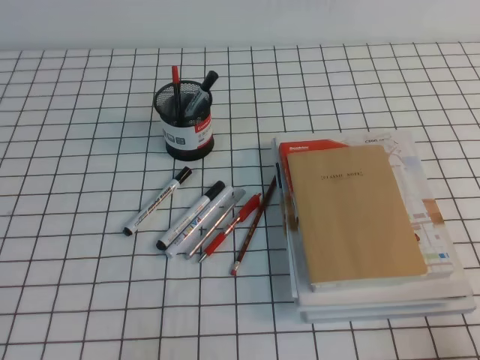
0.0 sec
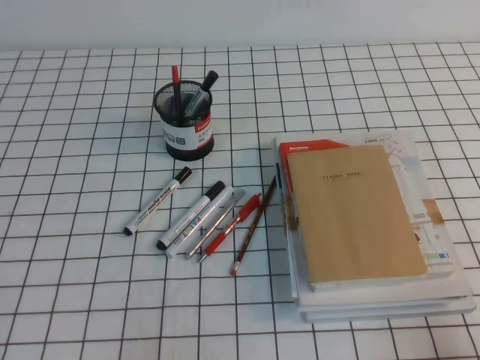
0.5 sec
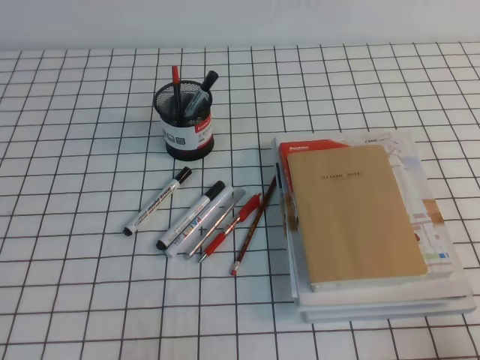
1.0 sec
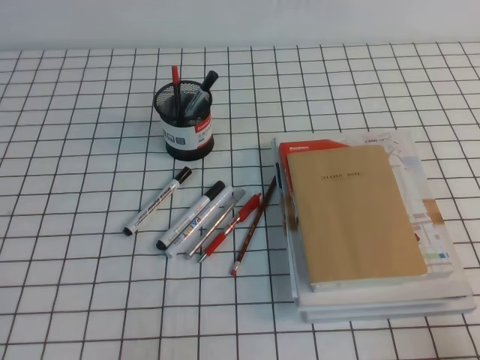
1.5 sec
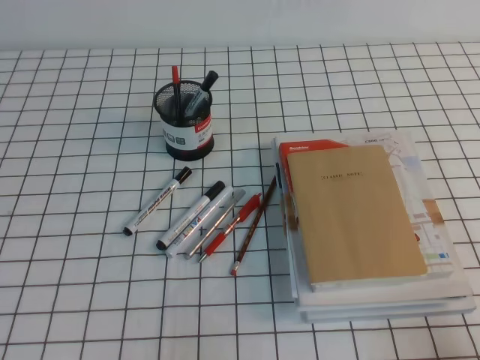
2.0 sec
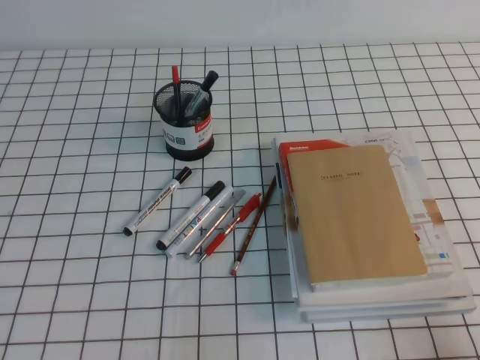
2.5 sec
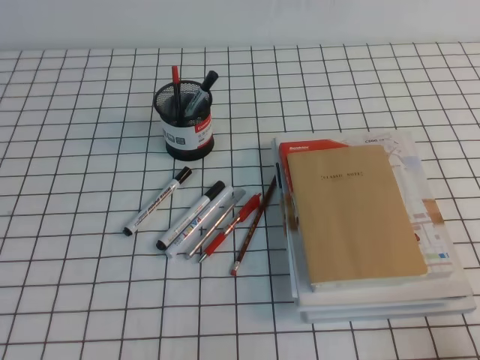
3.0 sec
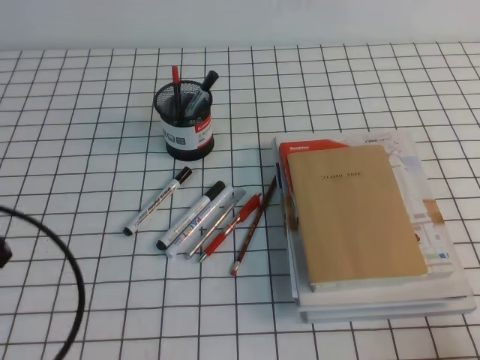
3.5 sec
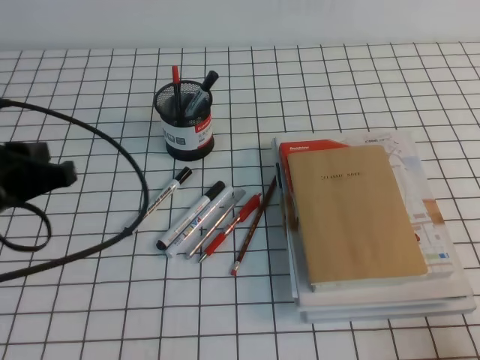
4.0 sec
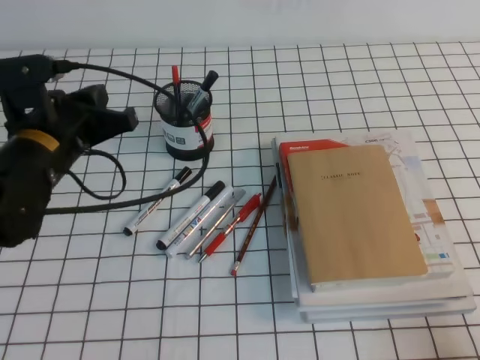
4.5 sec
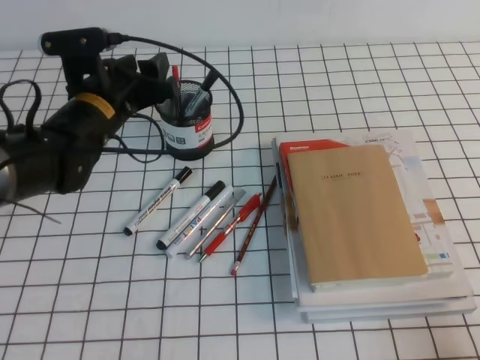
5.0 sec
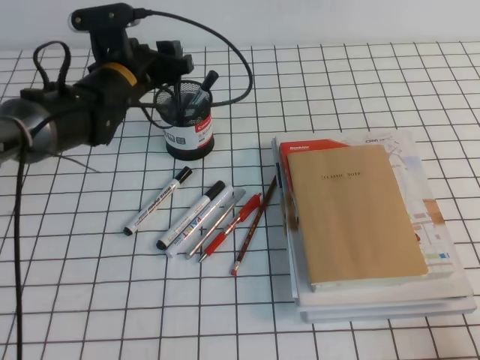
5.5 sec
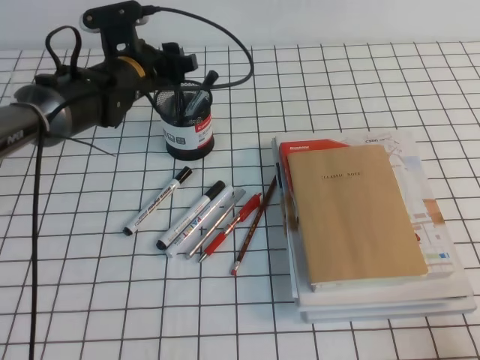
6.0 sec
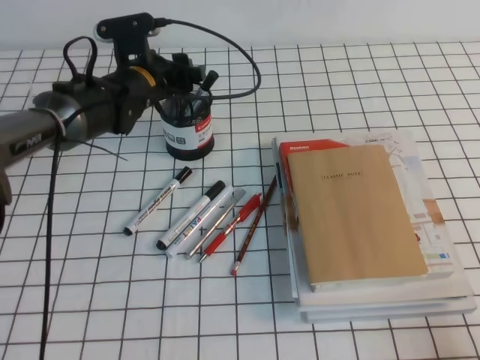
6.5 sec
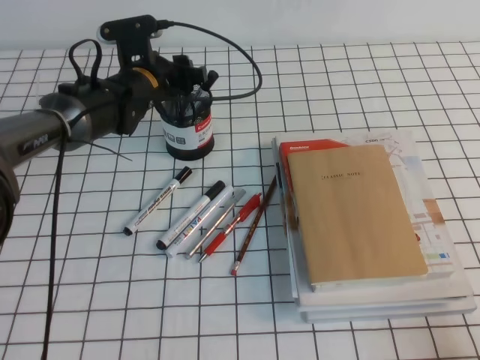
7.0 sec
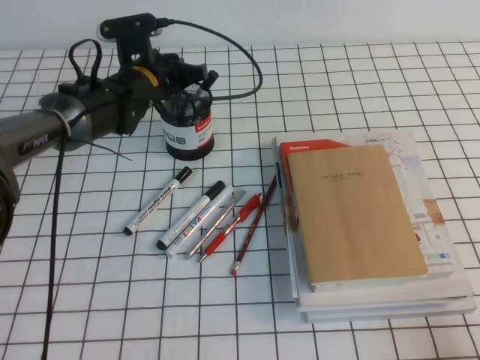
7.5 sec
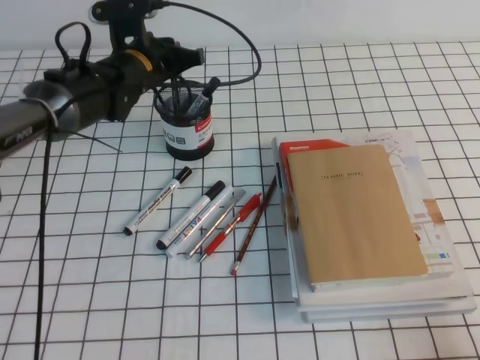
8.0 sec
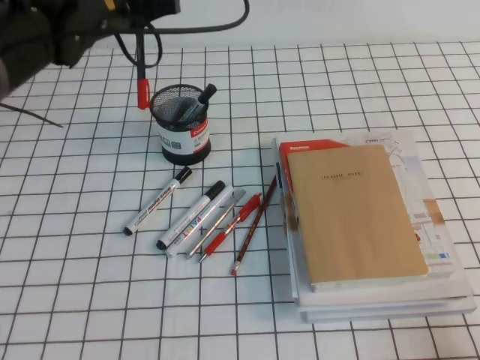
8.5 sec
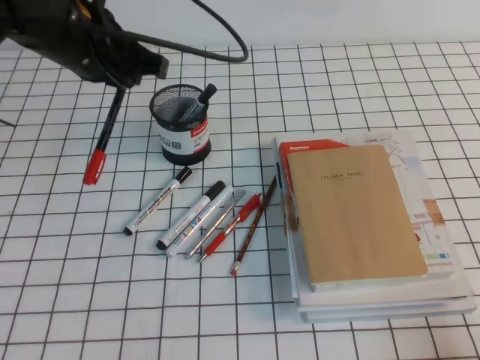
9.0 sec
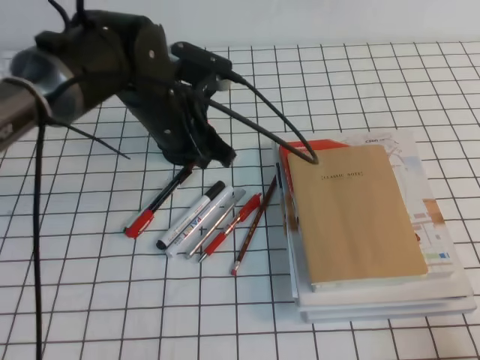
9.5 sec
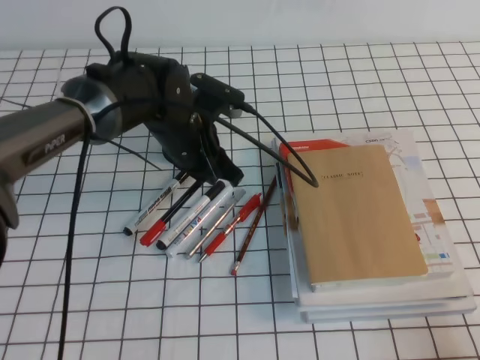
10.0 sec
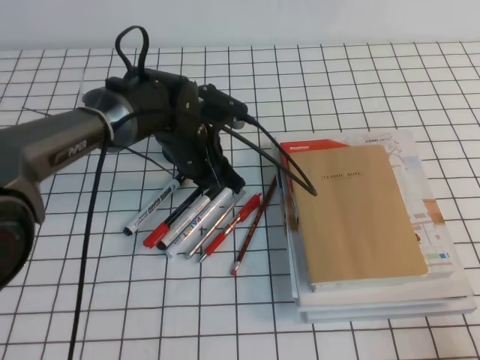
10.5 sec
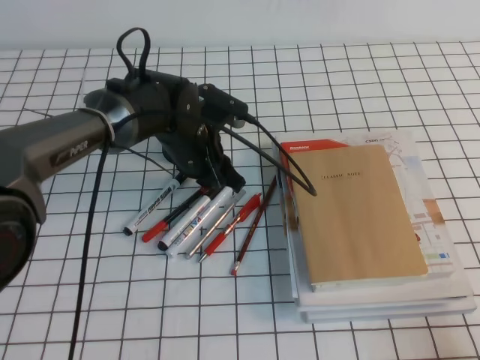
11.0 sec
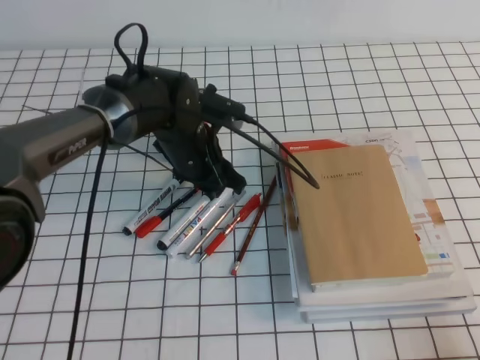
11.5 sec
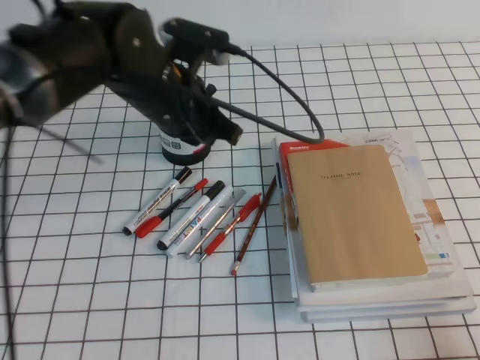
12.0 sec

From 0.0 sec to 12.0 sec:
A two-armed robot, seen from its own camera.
From 2.0 sec to 4.0 sec: The left gripper moves forward and upward, approximately 20 cm.
From 4.0 sec to 6.0 sec: The left gripper moves forward and to the right, roughly 25 cm, and opens its fingers.
From 6.0 sec to 8.0 sec: The left gripper closes.
From 8.0 sec to 10.0 sec: The left gripper goes roughly 10 cm backward and to the right, and travels upward and back again, approximately 10 cm each way.
From 10.0 sec to 12.0 sec: The left gripper goes roughly 5 cm upward, and opens, then closes once more.

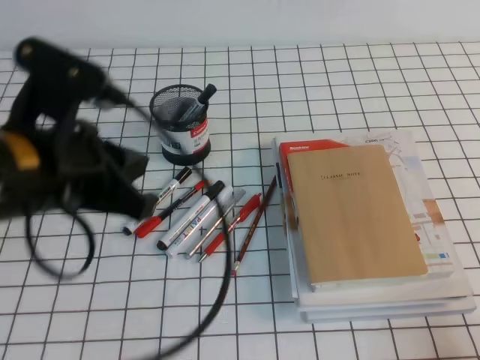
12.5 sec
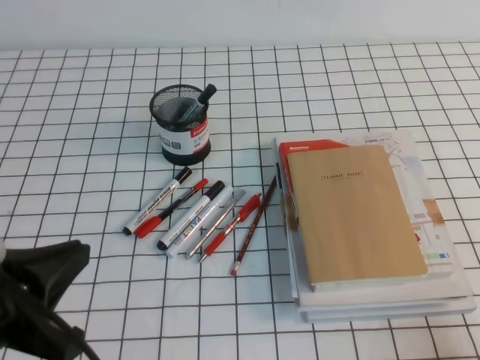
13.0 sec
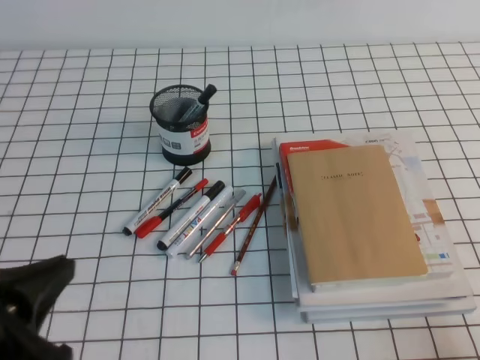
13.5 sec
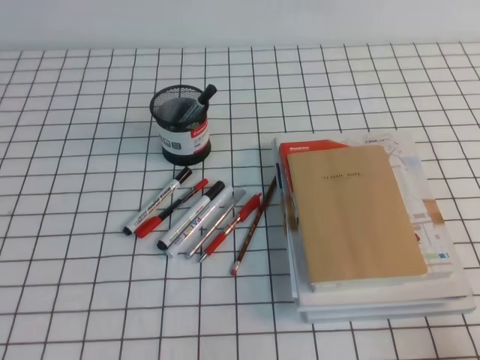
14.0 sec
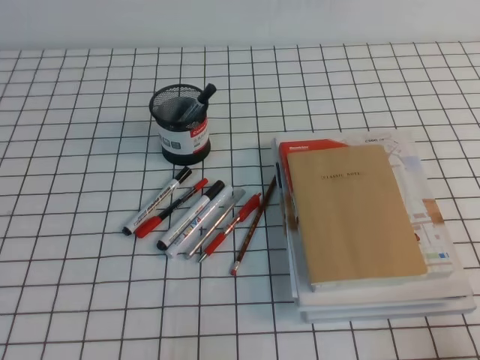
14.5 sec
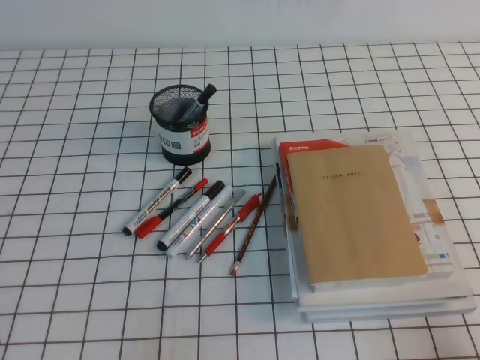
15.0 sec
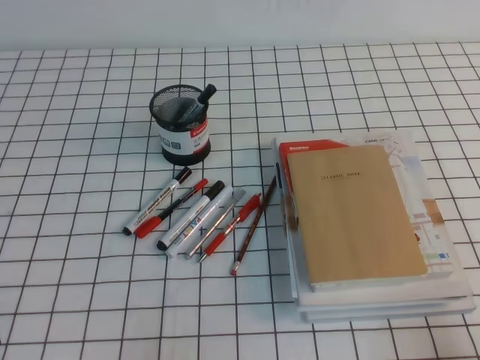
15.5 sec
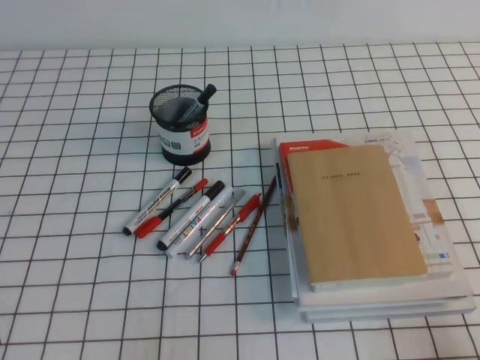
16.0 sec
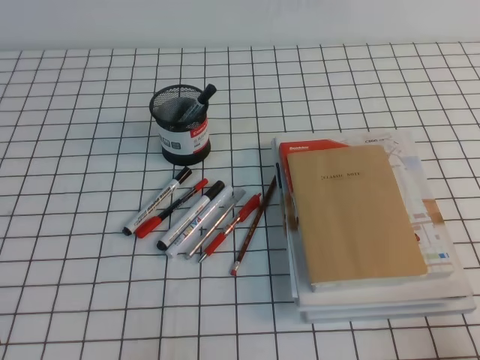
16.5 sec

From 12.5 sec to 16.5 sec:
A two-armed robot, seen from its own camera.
Step, from 12.5 sec to 16.5 sec: Pick up the pen from the pen holder.
From 12.5 sec to 14.5 sec: The left gripper heads backward, downward and to the left, covering about 25 cm.

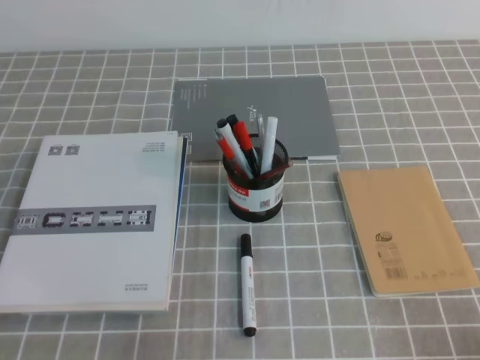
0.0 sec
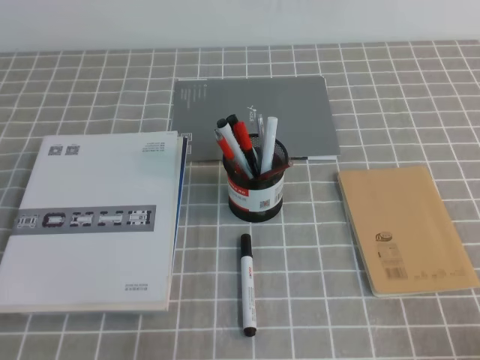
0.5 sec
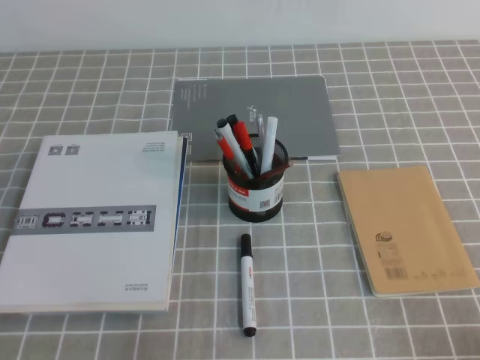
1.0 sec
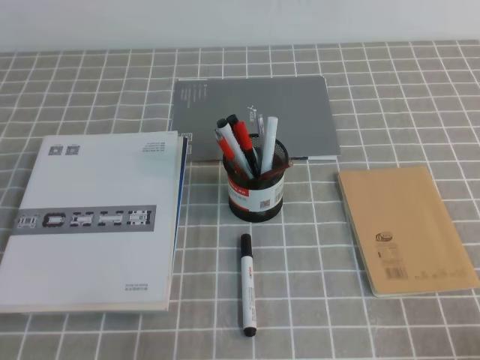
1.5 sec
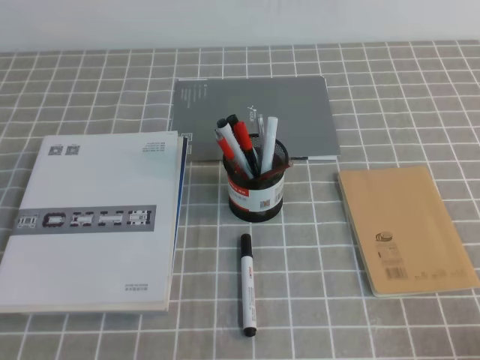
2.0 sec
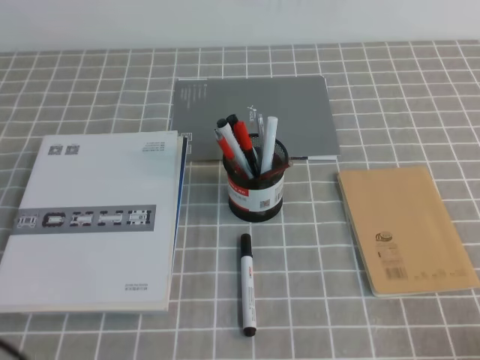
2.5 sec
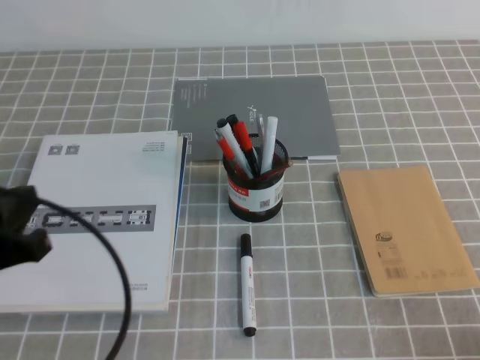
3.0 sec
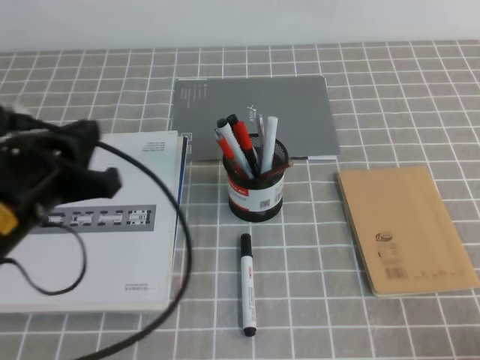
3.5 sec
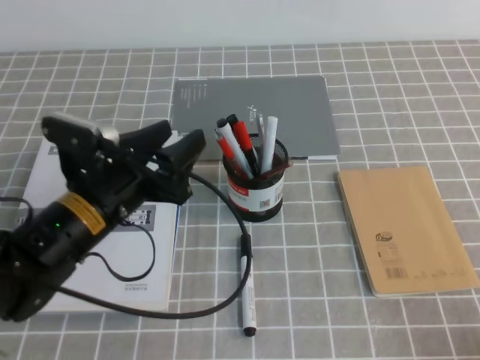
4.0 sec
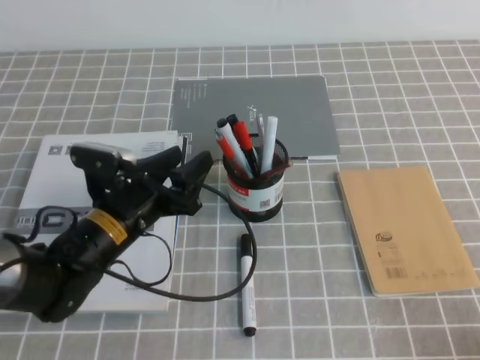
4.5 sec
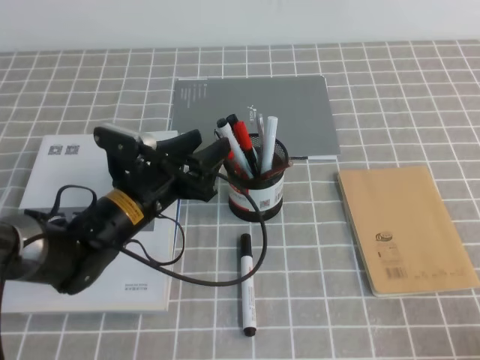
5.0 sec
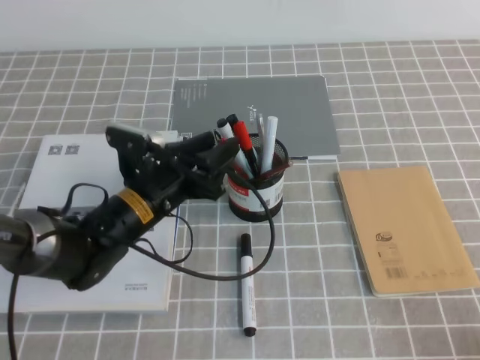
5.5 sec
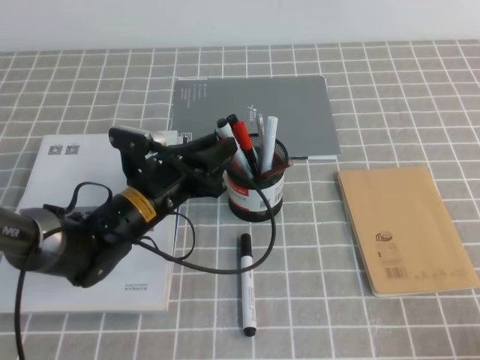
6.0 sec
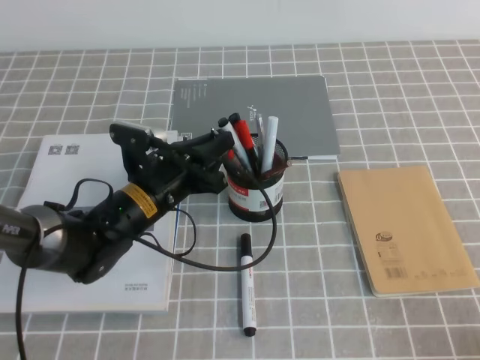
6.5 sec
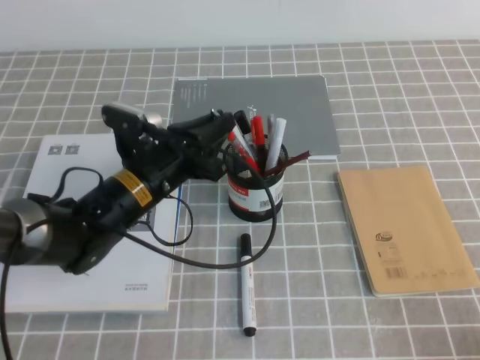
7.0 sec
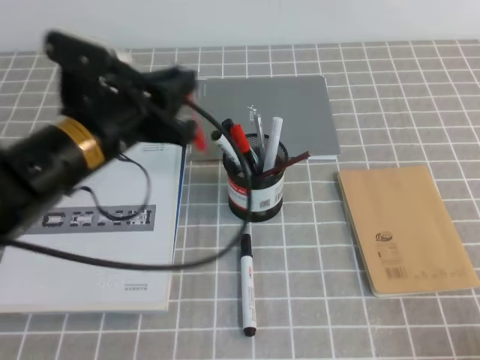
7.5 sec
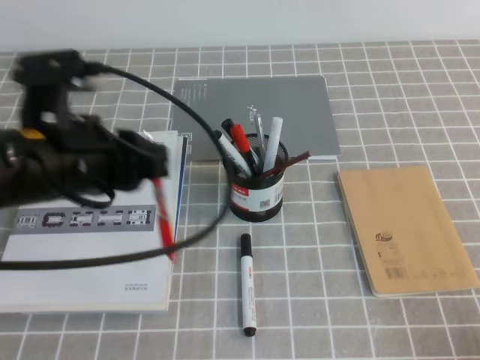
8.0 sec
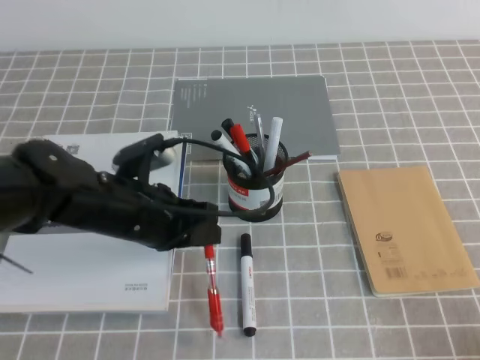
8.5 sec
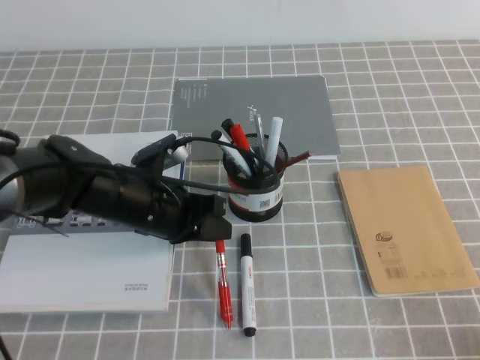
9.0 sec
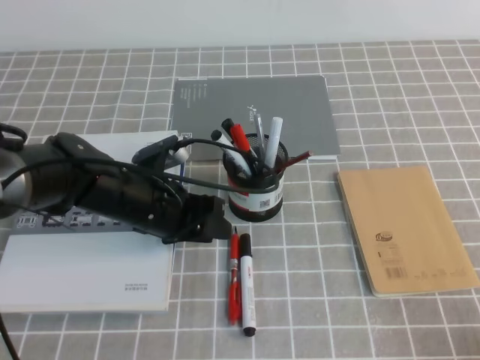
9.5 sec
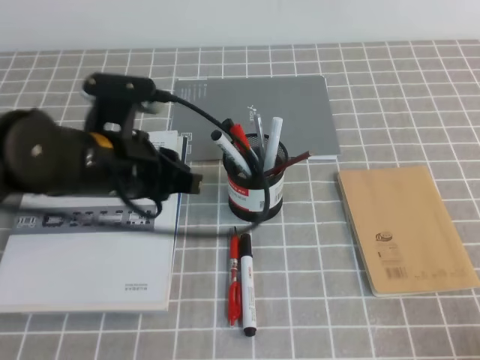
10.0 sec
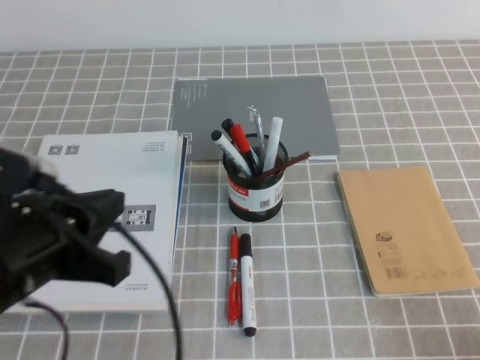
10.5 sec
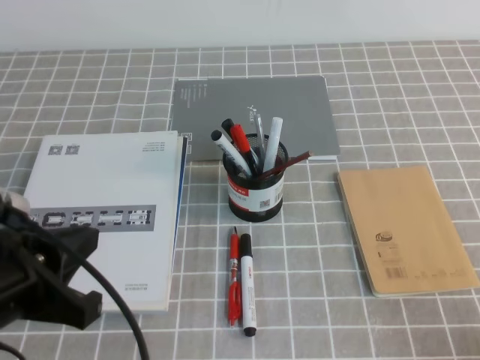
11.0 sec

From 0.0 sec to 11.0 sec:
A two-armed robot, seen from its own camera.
From 2.0 sec to 3.5 sec: The left gripper goes approximately 20 cm forward, upward and to the right.
From 3.5 sec to 5.5 sec: The left gripper travels downward, forward and to the right by approximately 20 cm, and opens its fingers.
From 5.5 sec to 7.5 sec: The left gripper is displaced upward by roughly 10 cm, and closes its fingers.
From 7.5 sec to 9.0 sec: The left gripper heads downward, covering roughly 10 cm.
From 9.0 sec to 11.0 sec: The left gripper shifts roughly 20 cm backward, upward and to the left.
